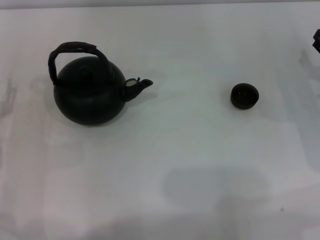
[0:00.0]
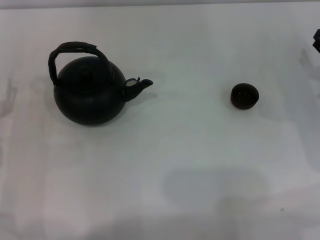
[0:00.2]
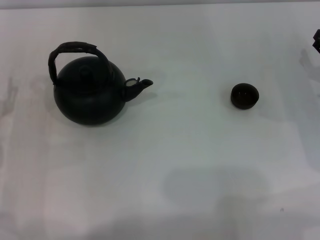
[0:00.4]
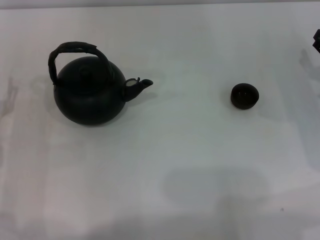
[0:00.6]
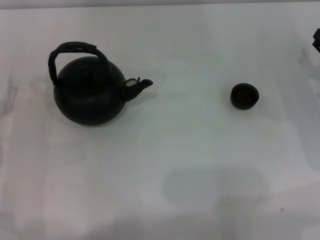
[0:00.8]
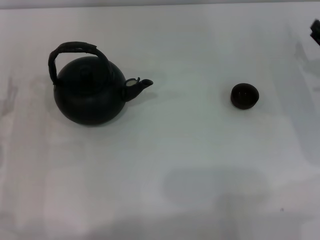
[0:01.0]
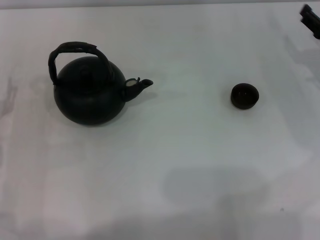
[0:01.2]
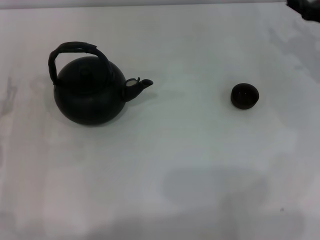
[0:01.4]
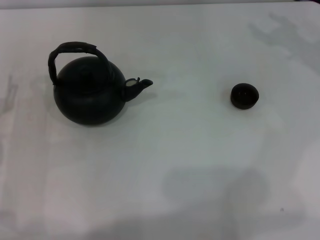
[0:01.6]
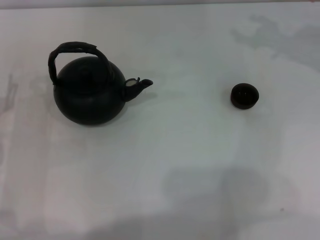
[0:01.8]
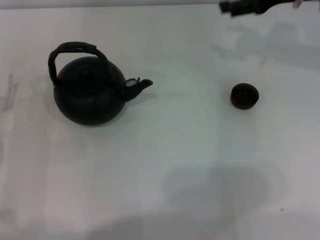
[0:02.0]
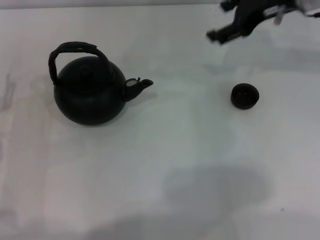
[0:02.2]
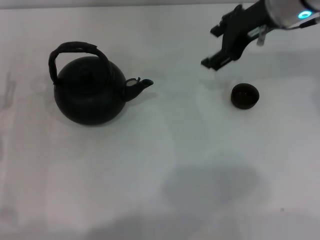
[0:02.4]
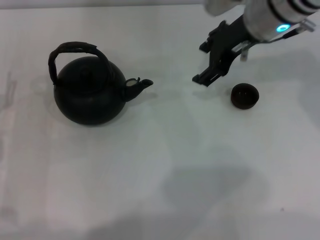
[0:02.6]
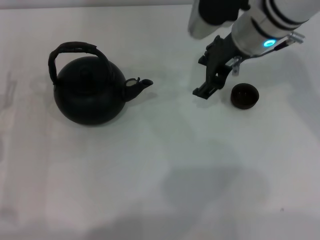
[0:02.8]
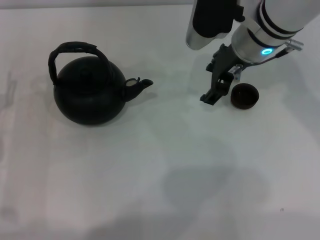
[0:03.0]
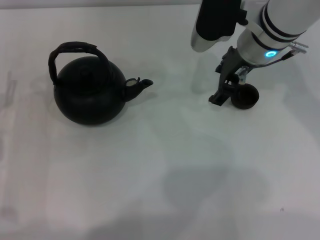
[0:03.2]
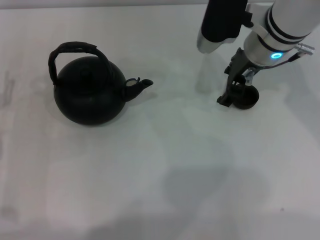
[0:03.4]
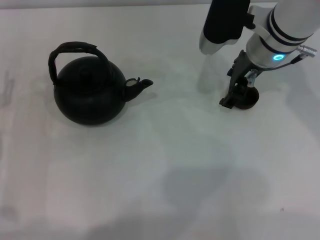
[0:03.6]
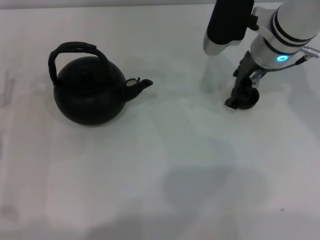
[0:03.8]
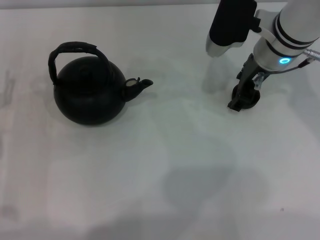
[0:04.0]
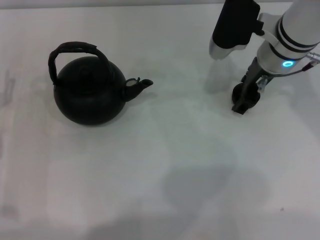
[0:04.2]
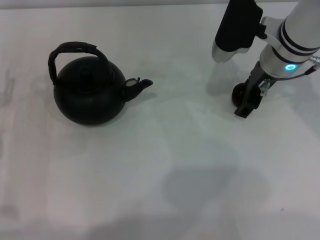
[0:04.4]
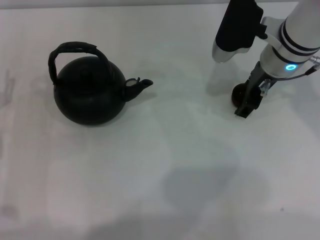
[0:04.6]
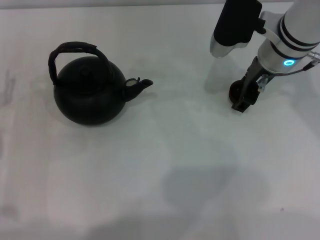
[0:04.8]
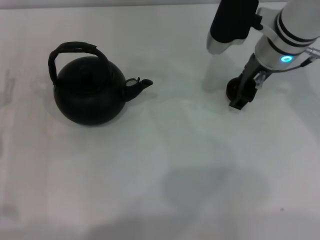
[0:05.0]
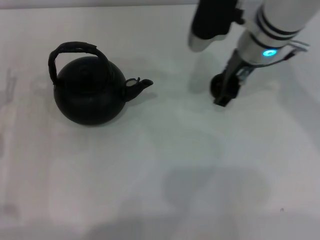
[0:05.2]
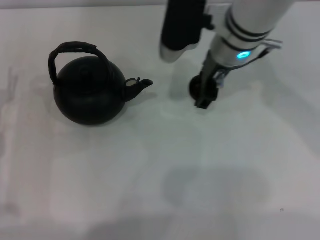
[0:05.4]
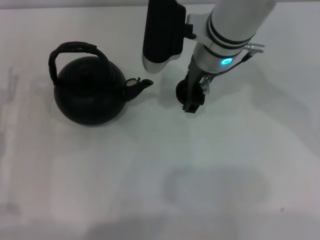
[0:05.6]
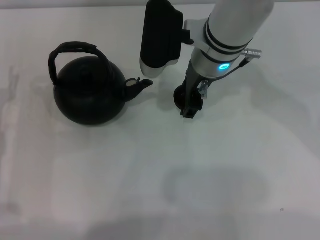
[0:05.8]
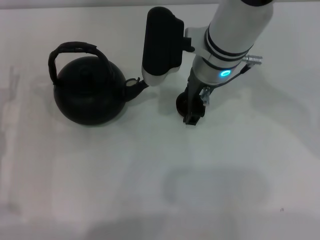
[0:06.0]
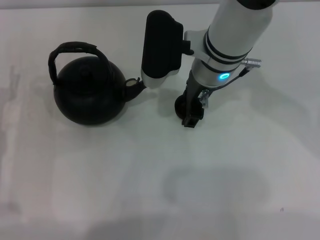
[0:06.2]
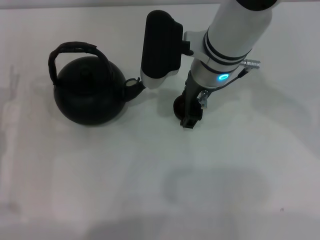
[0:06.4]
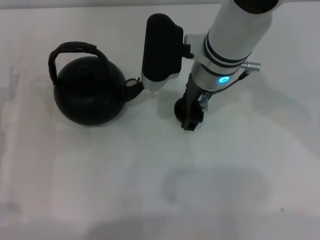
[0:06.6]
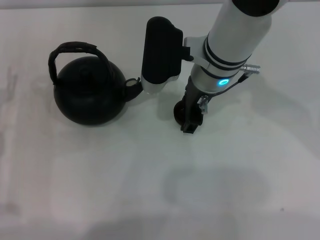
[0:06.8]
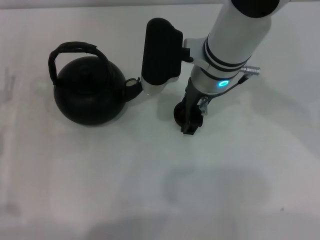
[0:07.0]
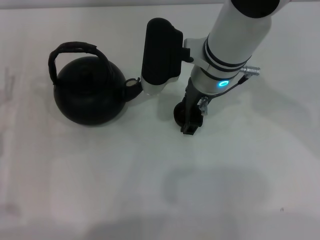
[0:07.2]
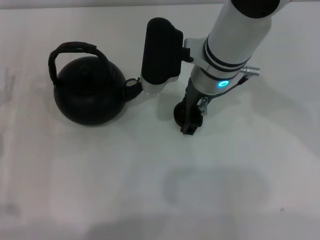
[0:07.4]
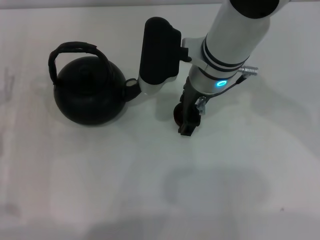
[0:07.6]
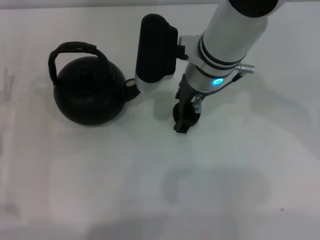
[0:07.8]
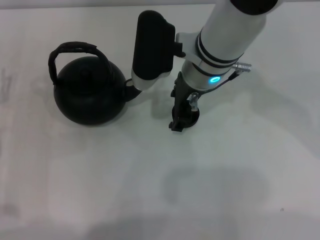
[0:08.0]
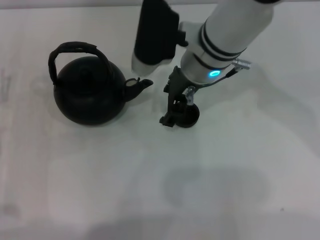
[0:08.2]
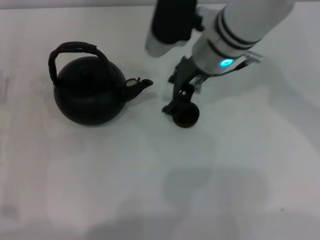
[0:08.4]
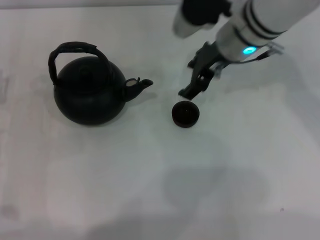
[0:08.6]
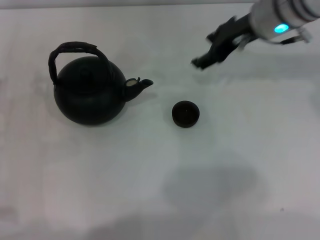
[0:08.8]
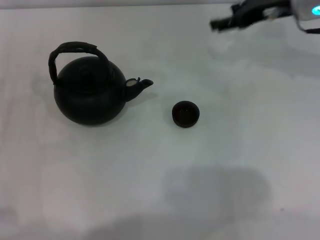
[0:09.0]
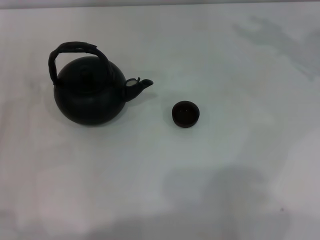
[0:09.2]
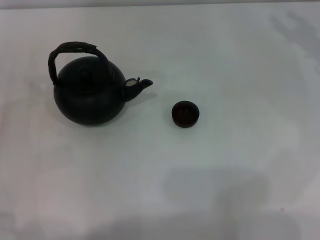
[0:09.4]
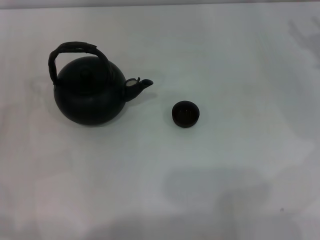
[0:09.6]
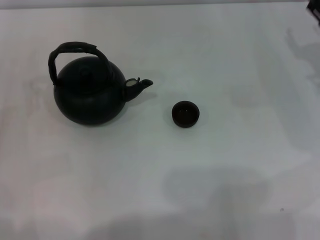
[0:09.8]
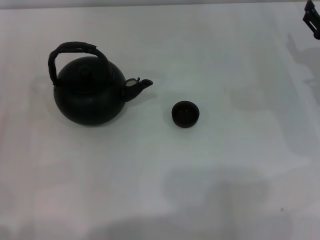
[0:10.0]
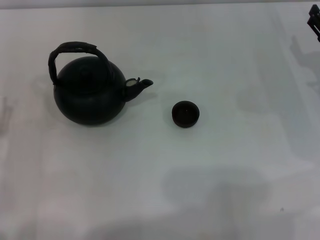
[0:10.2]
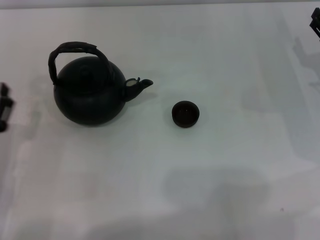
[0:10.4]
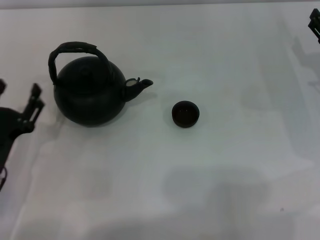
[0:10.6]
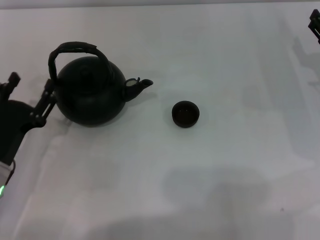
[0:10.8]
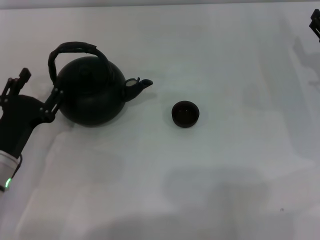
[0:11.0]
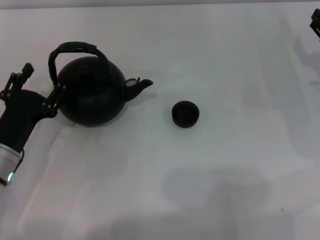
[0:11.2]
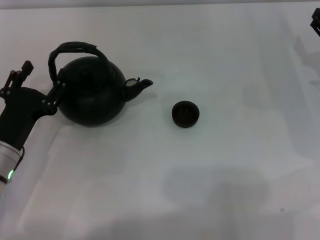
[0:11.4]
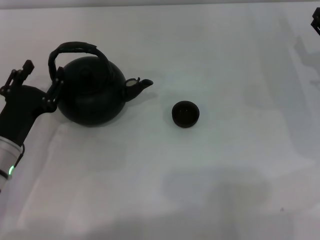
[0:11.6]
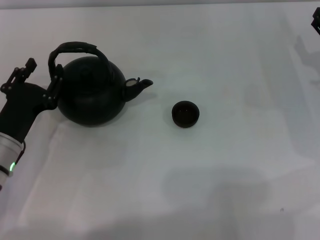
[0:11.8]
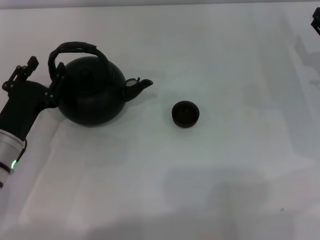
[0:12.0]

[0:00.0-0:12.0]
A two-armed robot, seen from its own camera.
Task of the whole recording: Grasp the handle of the teapot with one hand and pour tea into the teacup.
Step, 0:00.0 to 0:05.0: Pick up the teacup with the right gripper.
Step, 0:05.2 to 0:08.4: Place the teacup in the center of view with the right gripper.
0:01.6 to 0:03.0: The right gripper shifts some 20 cm to the left.
0:03.0 to 0:04.4: There are only small adjustments of the grippers.
0:04.4 to 0:06.0: The right gripper travels to the left by approximately 10 cm.
0:06.0 to 0:07.6: Neither gripper changes place.
0:07.6 to 0:09.0: The right gripper moves to the right, about 15 cm.
0:09.0 to 0:10.4: The left gripper moves backward, about 5 cm, while the right gripper goes about 20 cm downward, backward and to the right.
0:10.4 to 0:12.0: The left gripper shifts about 5 cm forward.

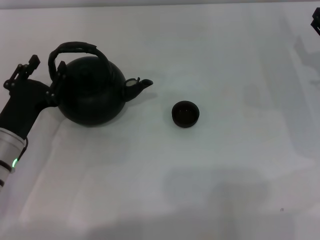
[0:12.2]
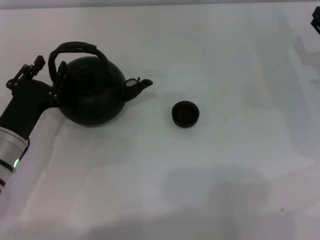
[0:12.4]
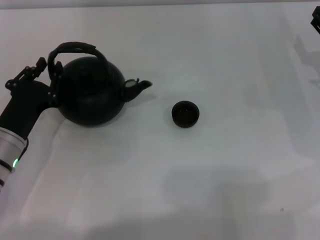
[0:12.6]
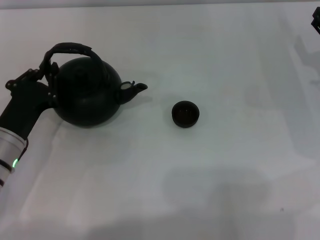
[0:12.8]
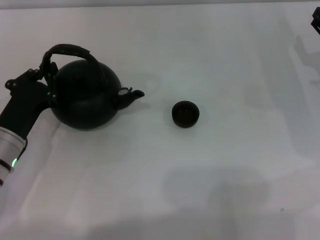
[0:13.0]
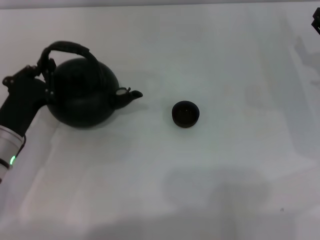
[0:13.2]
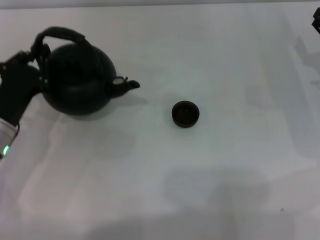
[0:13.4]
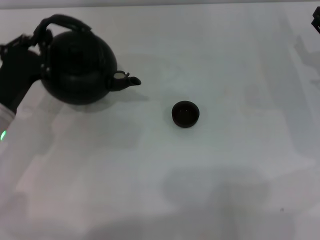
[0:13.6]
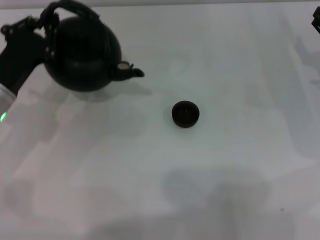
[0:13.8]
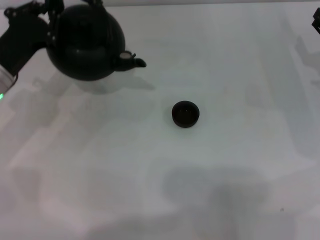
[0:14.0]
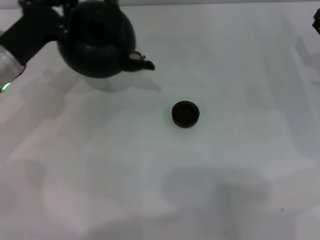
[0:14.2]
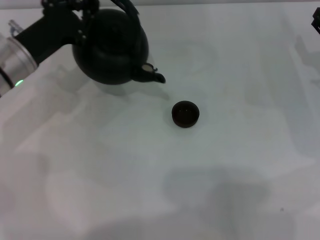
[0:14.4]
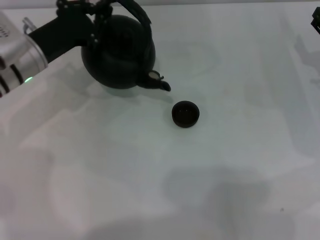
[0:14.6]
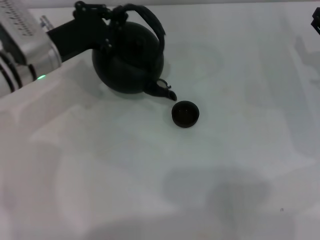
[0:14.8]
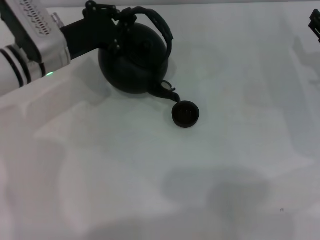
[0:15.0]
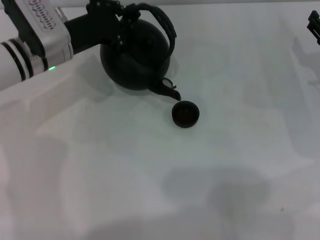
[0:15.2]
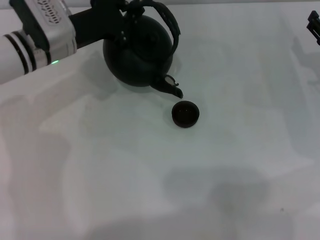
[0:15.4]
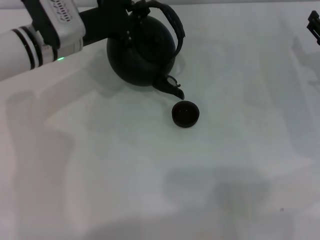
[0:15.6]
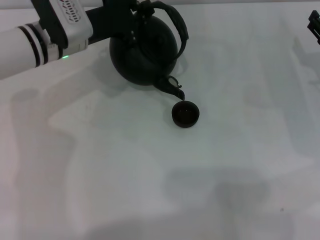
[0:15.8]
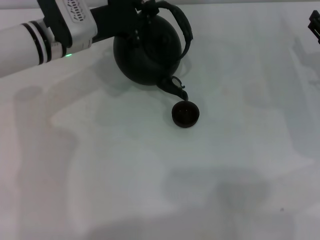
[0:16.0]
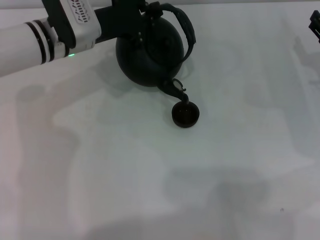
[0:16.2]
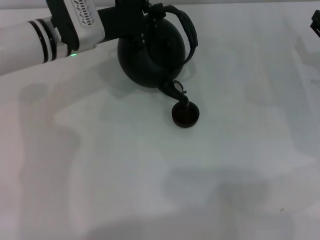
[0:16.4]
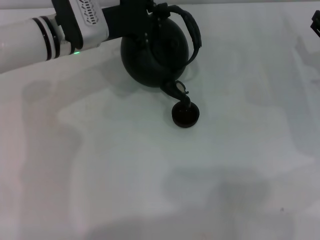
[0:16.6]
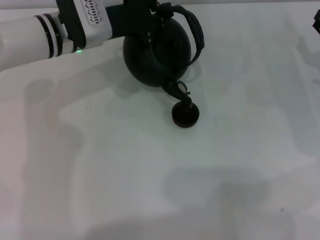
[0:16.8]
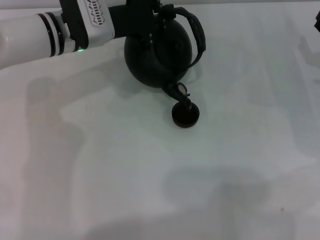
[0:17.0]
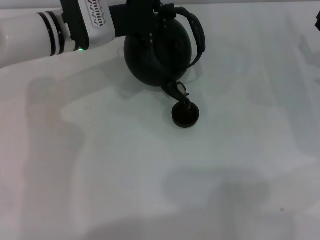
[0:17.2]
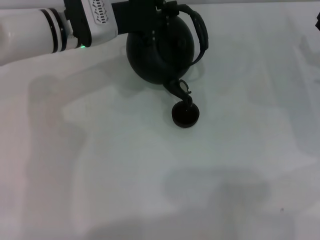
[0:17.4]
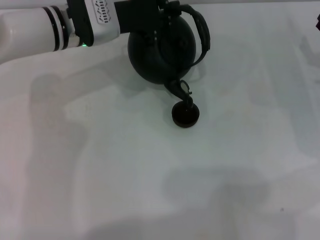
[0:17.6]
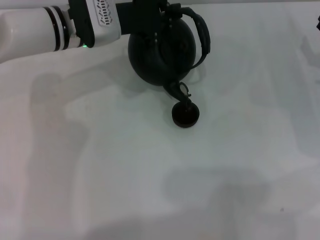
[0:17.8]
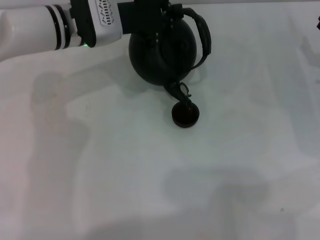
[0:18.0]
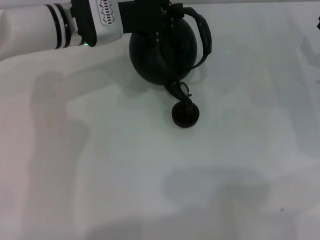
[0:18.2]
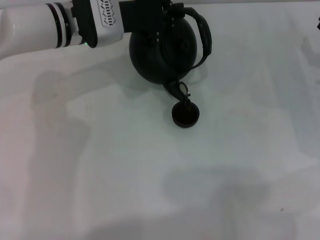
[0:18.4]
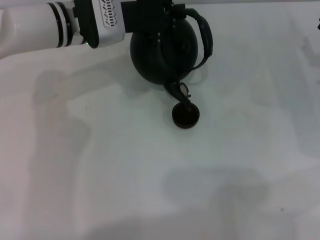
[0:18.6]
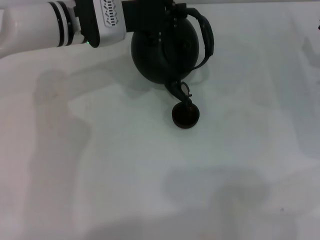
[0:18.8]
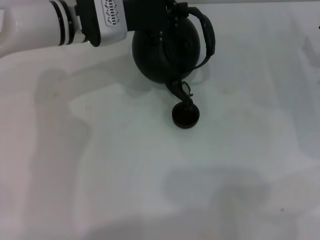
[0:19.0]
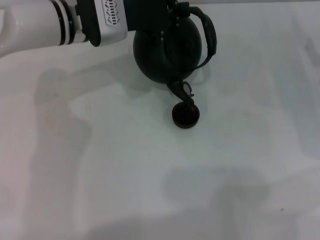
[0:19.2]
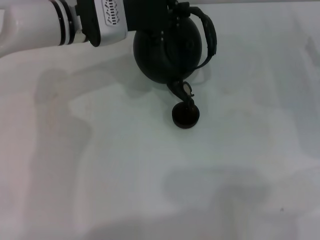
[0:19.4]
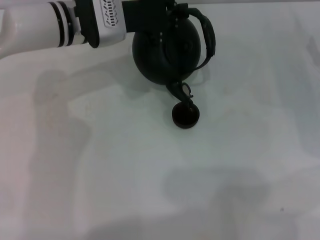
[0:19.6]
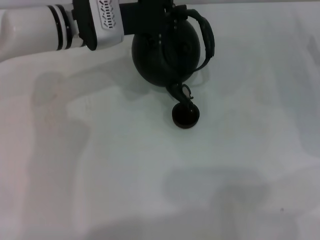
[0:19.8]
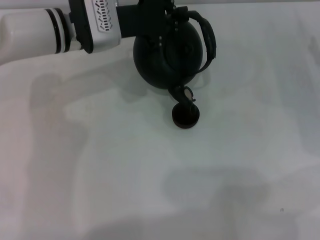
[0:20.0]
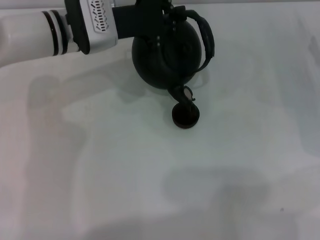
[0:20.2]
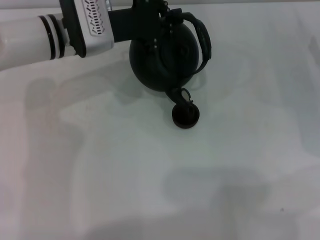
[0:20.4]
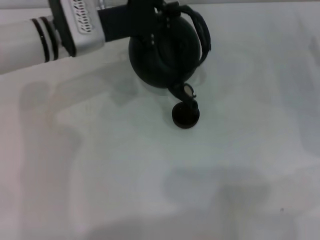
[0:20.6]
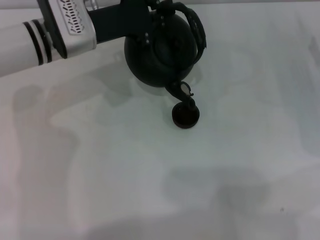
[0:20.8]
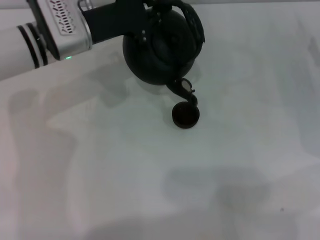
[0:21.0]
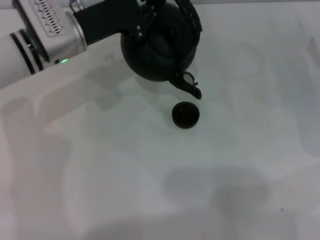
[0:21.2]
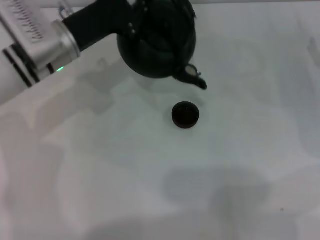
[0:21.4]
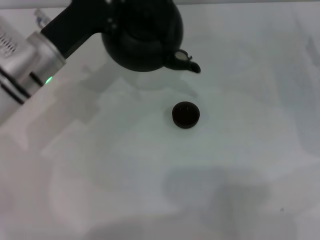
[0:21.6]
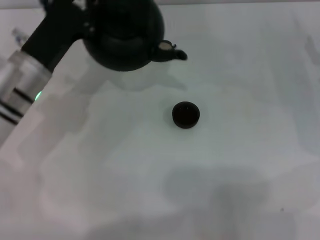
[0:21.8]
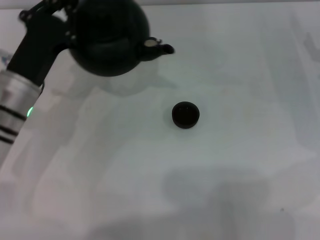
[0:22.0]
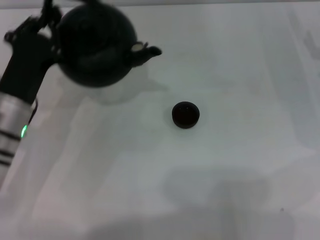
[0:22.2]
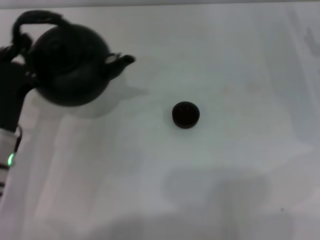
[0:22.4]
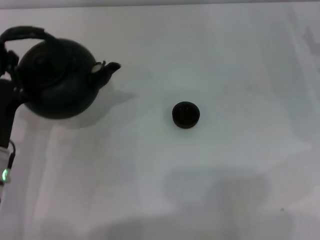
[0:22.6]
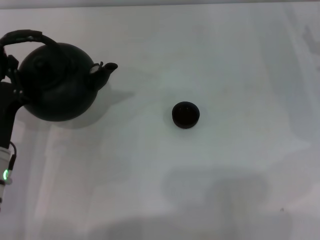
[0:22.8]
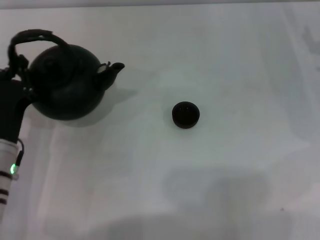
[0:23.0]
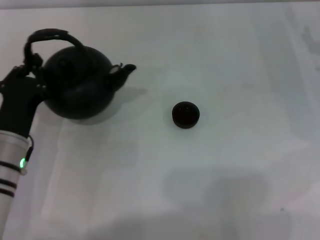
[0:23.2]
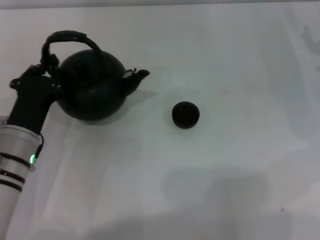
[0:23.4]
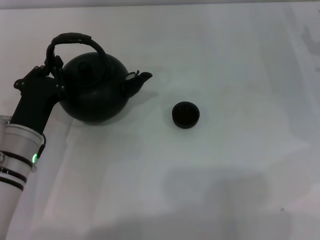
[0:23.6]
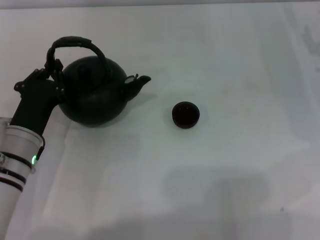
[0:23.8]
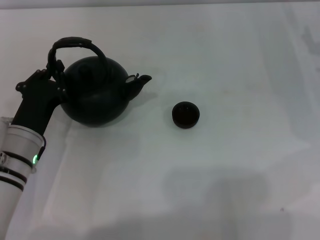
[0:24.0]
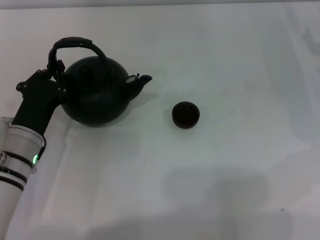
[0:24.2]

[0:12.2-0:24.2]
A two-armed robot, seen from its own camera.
Task of the whole recording: Grasp the handle of the teapot with one hand and pour tea into the teacup.
Step, 0:14.0 to 0:21.6: Pour tea into the teacup with the left gripper.
0:12.2 to 0:13.8: The left gripper heads forward, covering about 5 cm, and closes.
0:13.8 to 0:15.2: The left gripper is displaced forward and to the right by roughly 10 cm.
0:15.2 to 0:16.6: The left gripper shifts by approximately 5 cm.
0:16.6 to 0:18.2: The grippers make only small movements.
0:18.2 to 0:19.8: Both grippers stay about where they are.
0:19.8 to 0:21.2: The left gripper changes place by some 5 cm.
0:21.2 to 0:22.6: The left gripper moves backward and downward, some 20 cm.
0:22.6 to 0:24.2: The grippers move only a little.
